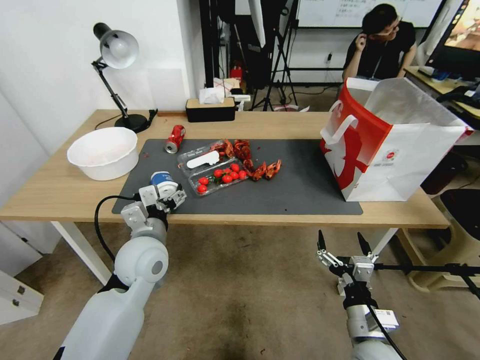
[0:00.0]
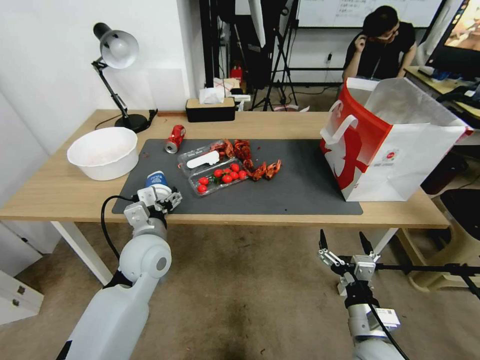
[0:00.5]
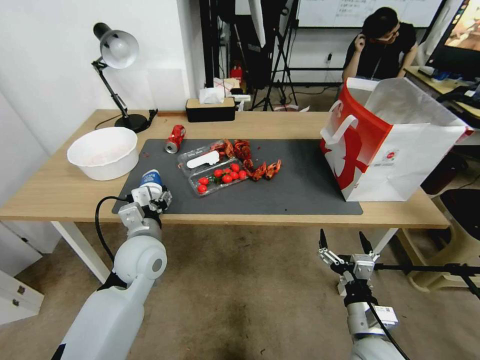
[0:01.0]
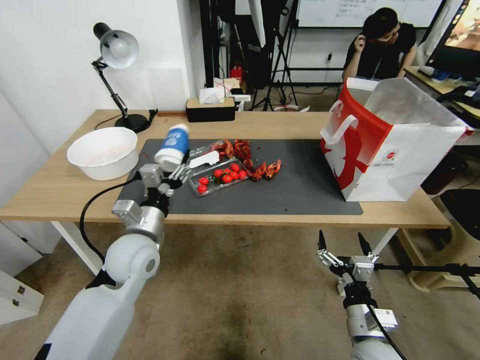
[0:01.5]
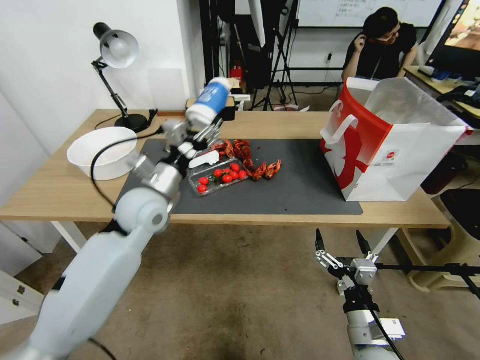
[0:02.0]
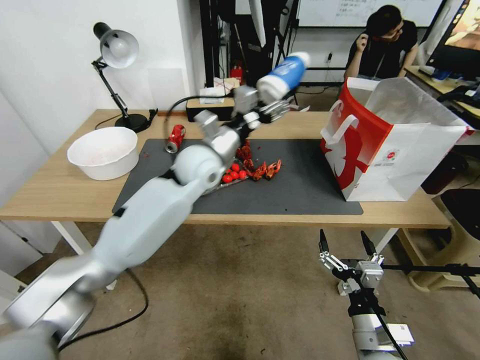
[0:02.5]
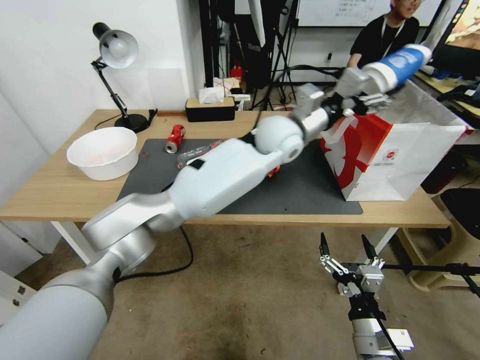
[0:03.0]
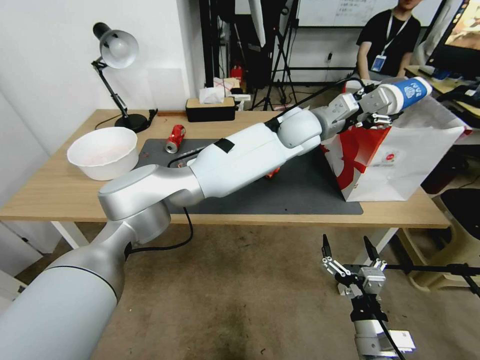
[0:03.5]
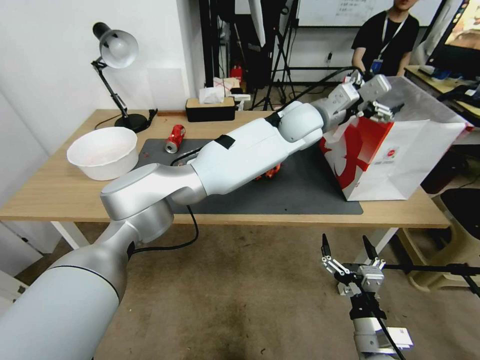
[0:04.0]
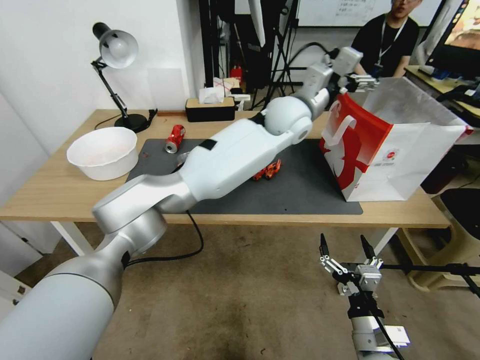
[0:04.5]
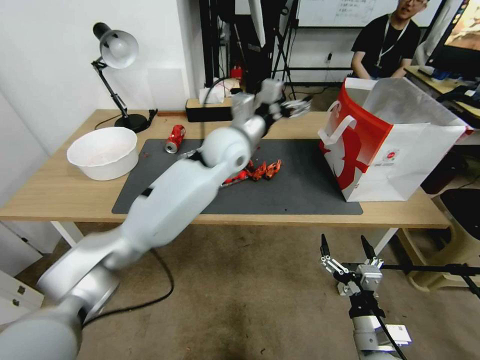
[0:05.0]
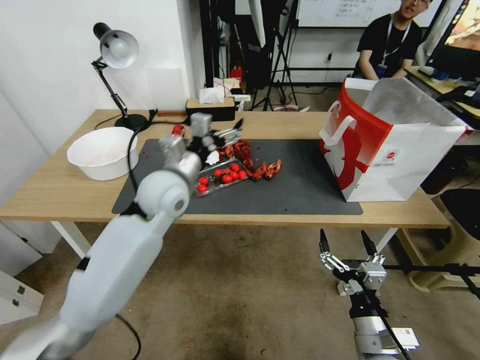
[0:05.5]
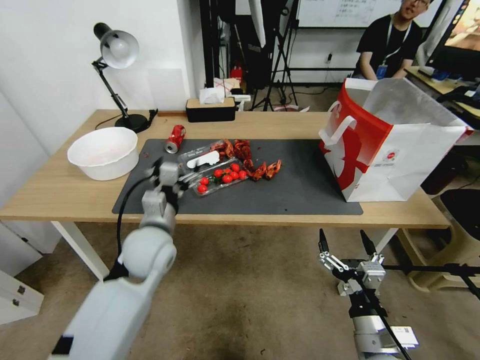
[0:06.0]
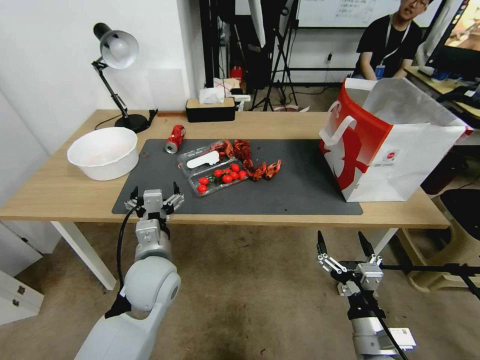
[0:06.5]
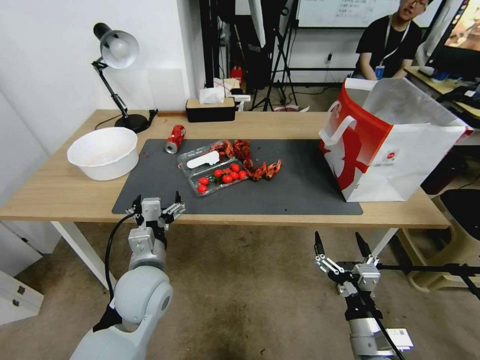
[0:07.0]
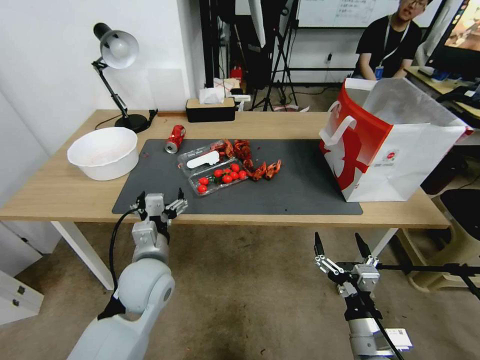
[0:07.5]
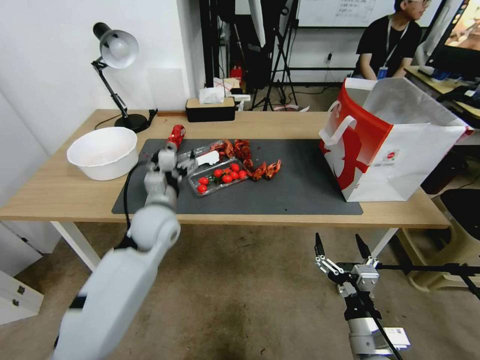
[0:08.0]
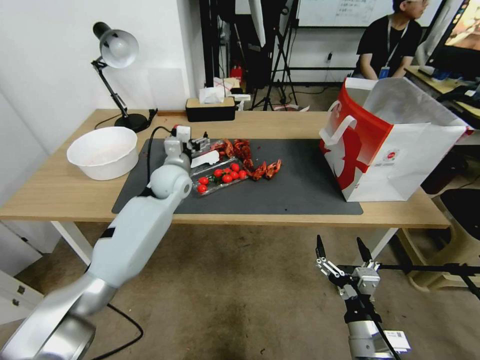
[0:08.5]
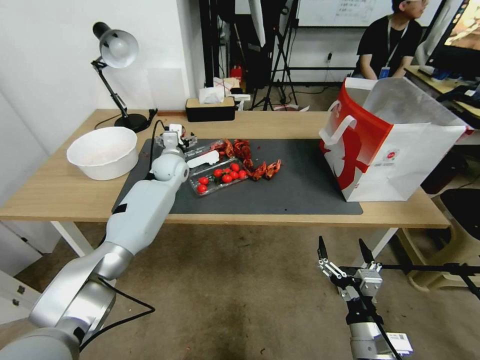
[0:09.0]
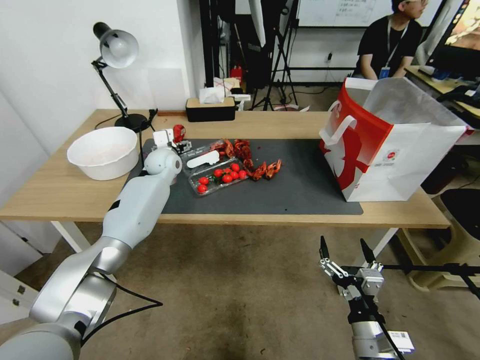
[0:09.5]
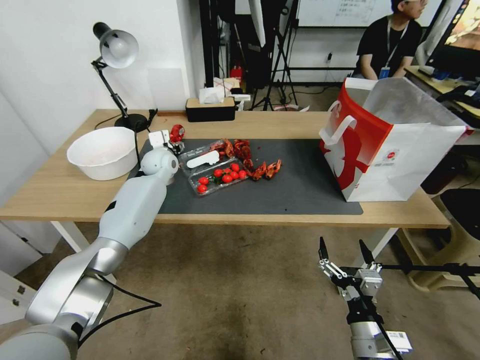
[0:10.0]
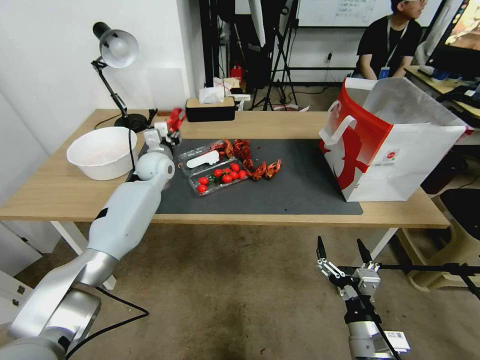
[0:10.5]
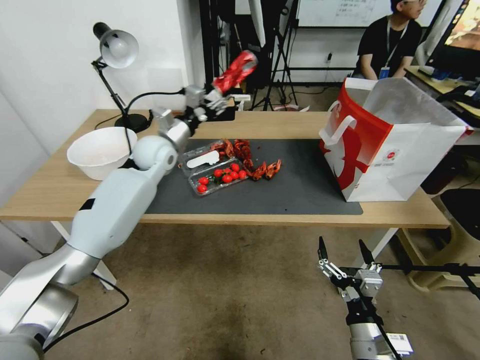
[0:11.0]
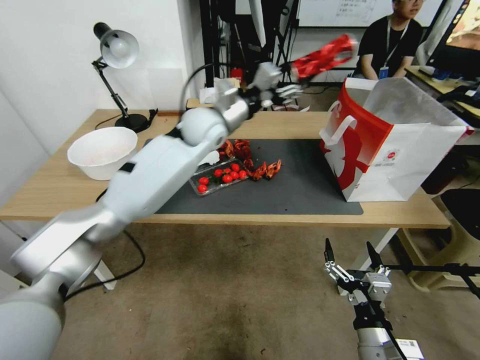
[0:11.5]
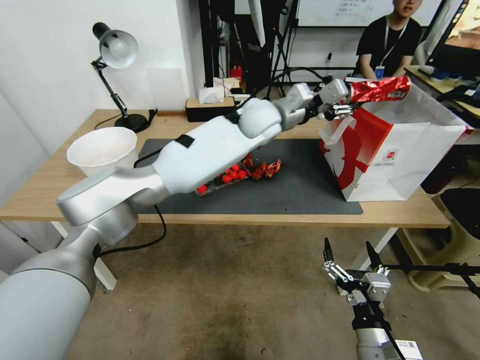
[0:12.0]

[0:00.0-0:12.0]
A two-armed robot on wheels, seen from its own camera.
0:00.0 to 0:02.0: The left gripper heads forward and upward, covering roughly 10 cm, and closes up.
0:02.0 to 0:04.0: The left gripper heads to the right and forward, covering roughly 35 cm, and opens.
0:04.0 to 0:06.0: The left gripper is displaced to the left, backward and downward by roughly 40 cm.
0:06.0 to 0:08.0: The left gripper goes backward and returns, roughly 10 cm each way.
0:08.0 to 0:10.0: The left gripper heads forward, covering about 25 cm, and closes its fingers.
0:10.0 to 0:12.0: The left gripper moves to the right and upward, about 30 cm, and closes.

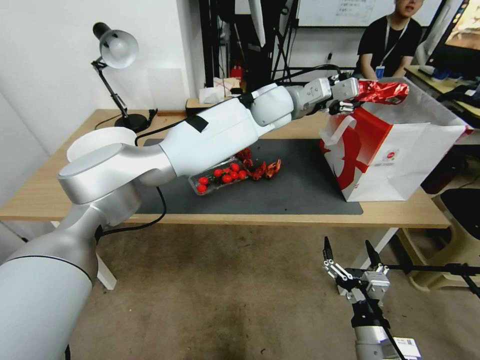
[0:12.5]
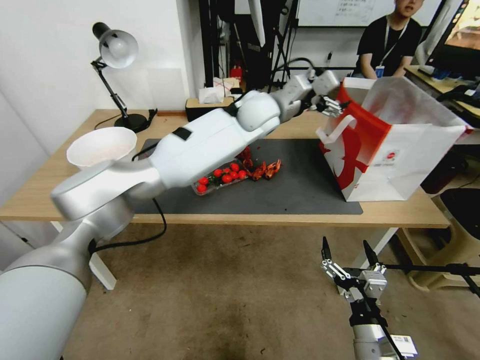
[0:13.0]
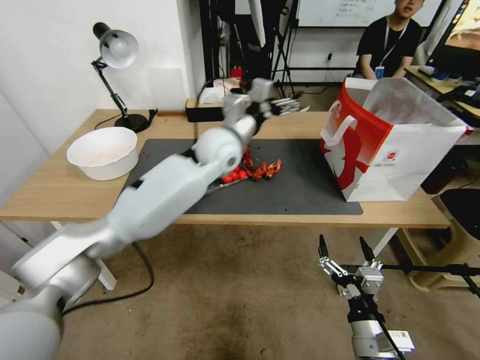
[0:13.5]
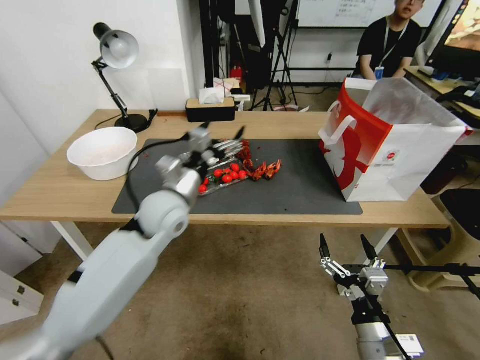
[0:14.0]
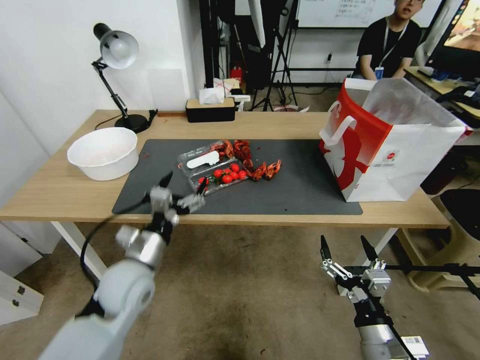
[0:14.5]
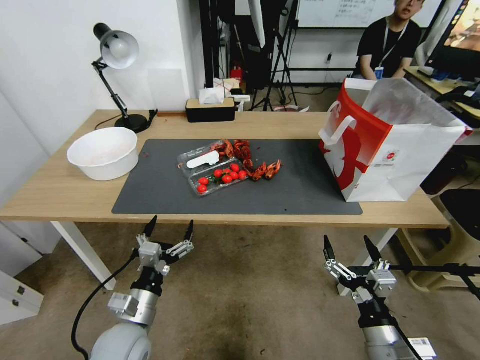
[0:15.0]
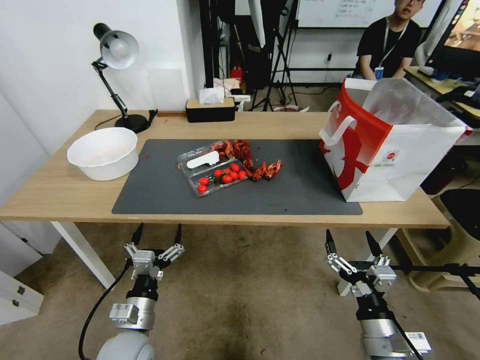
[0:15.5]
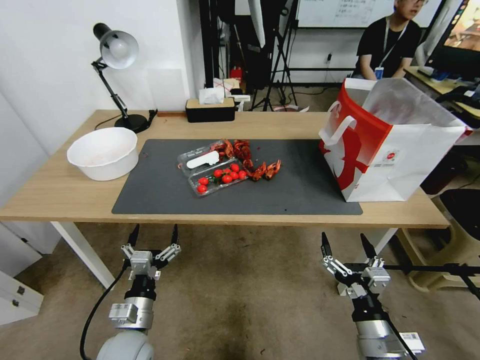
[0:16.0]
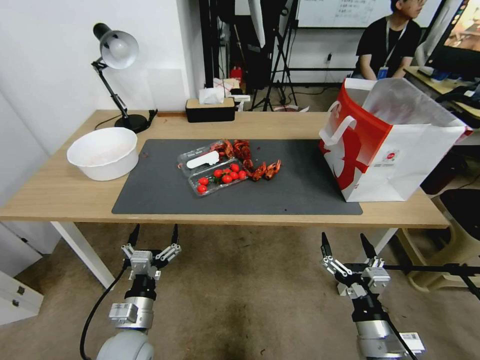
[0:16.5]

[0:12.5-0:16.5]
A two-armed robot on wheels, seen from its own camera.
0:12.5 to 0:14.5: The left gripper travels backward, to the left and downward by approximately 50 cm, and opens.
0:14.5 to 0:16.5: The left gripper is displaced downward and backward by approximately 15 cm.

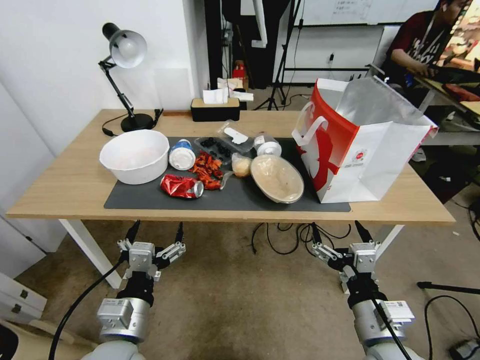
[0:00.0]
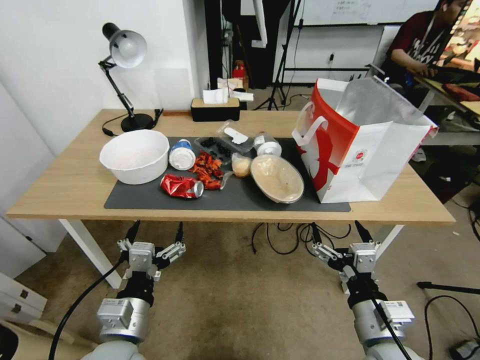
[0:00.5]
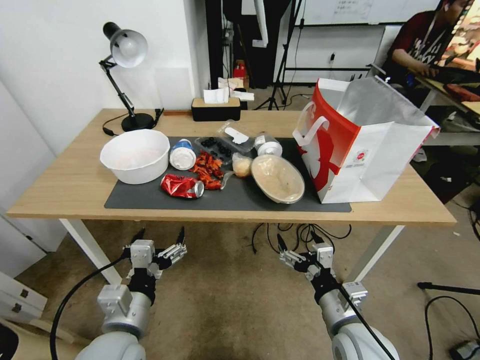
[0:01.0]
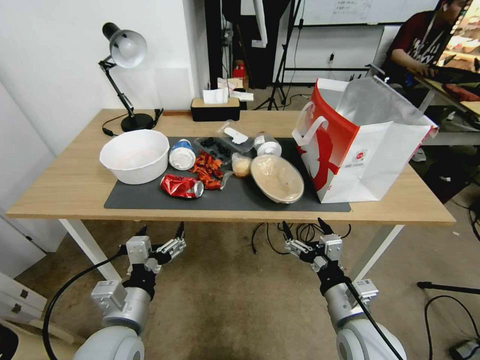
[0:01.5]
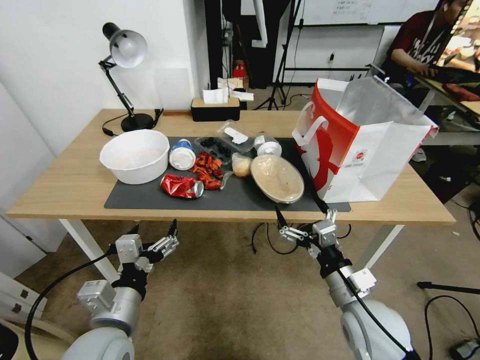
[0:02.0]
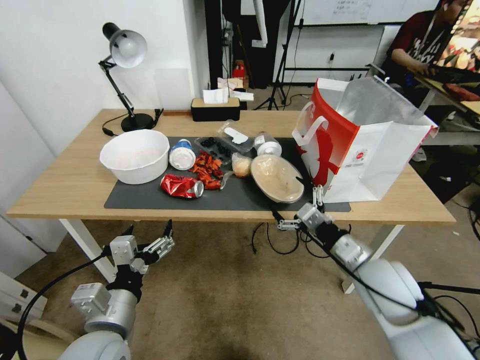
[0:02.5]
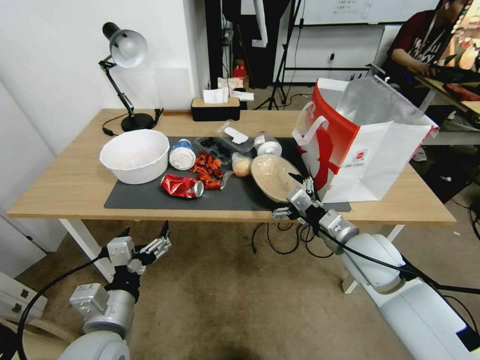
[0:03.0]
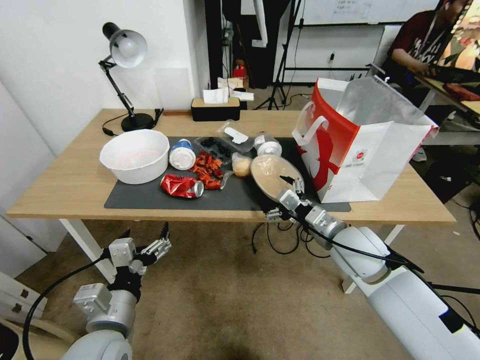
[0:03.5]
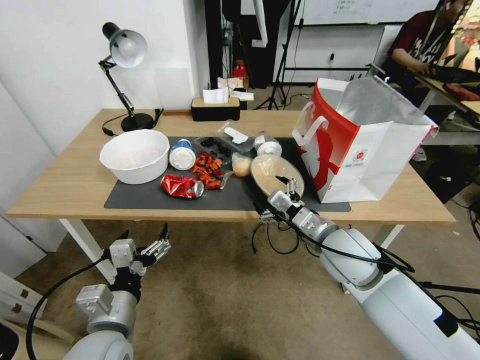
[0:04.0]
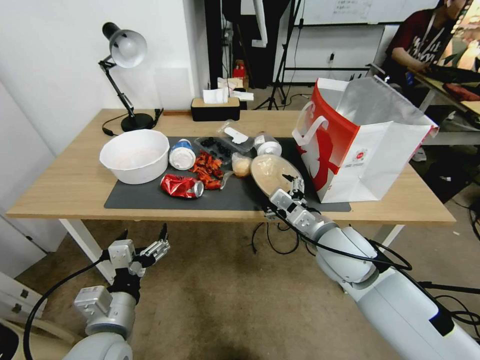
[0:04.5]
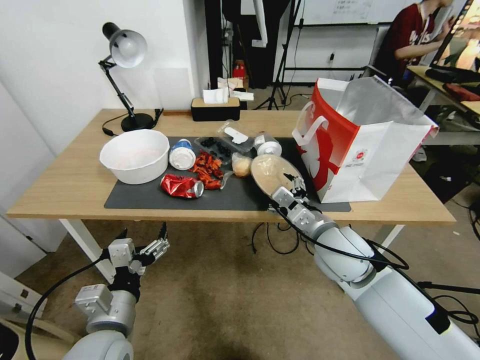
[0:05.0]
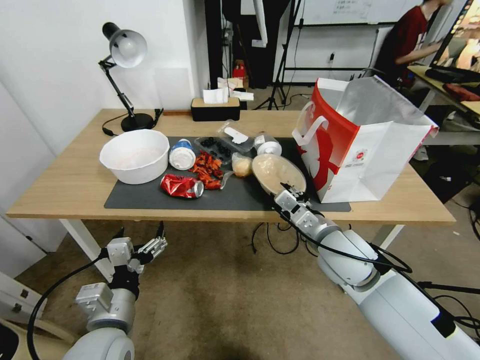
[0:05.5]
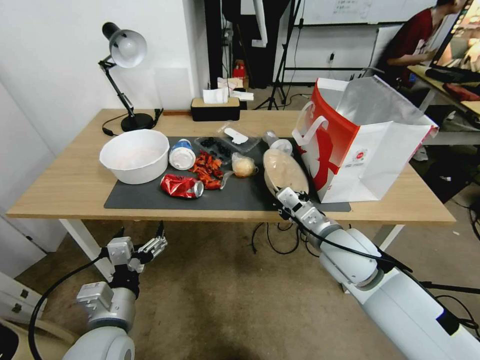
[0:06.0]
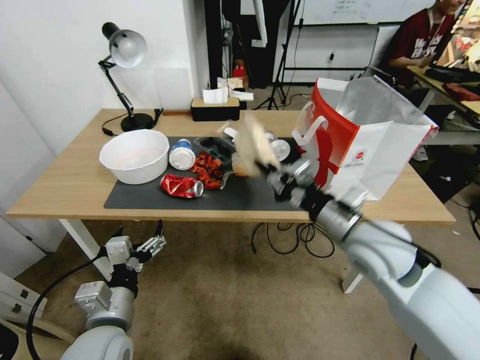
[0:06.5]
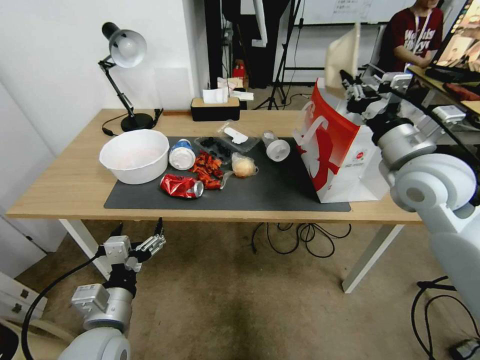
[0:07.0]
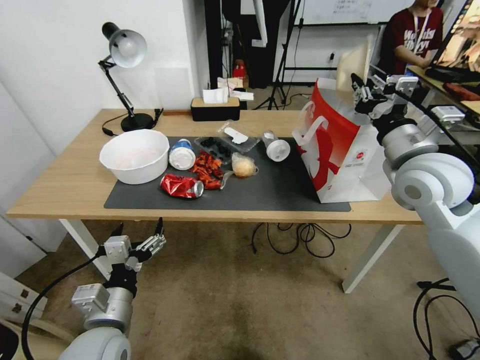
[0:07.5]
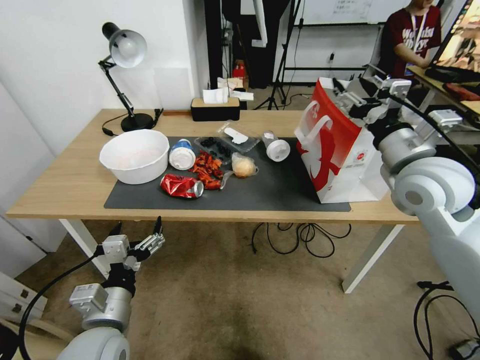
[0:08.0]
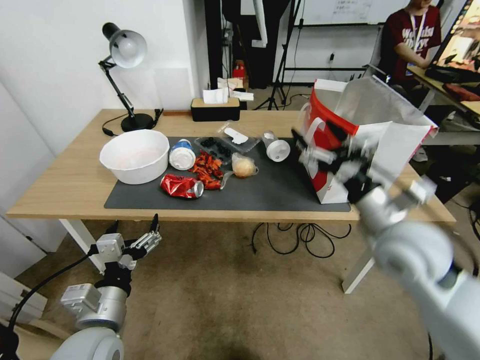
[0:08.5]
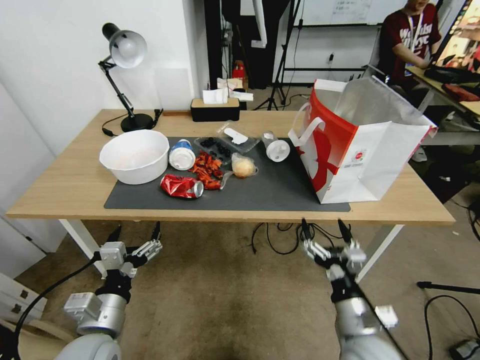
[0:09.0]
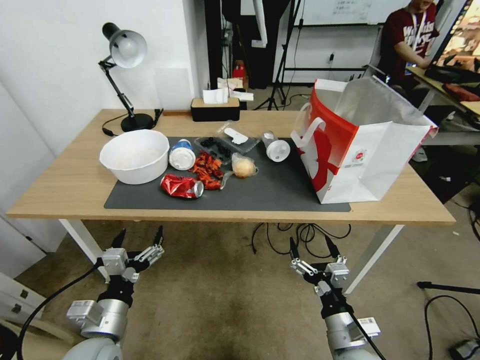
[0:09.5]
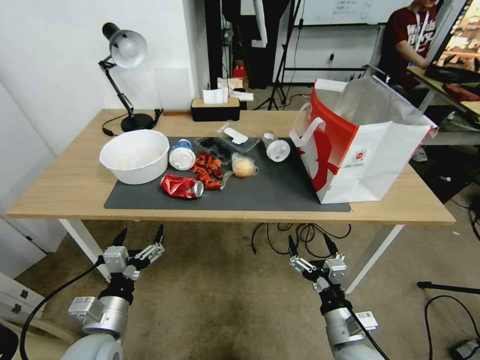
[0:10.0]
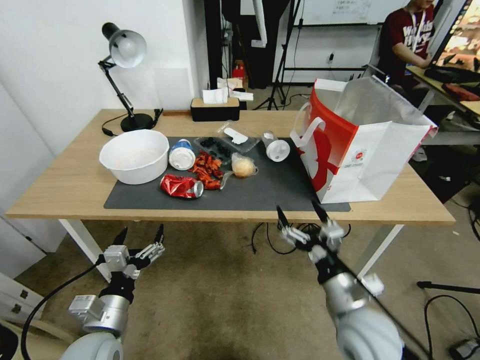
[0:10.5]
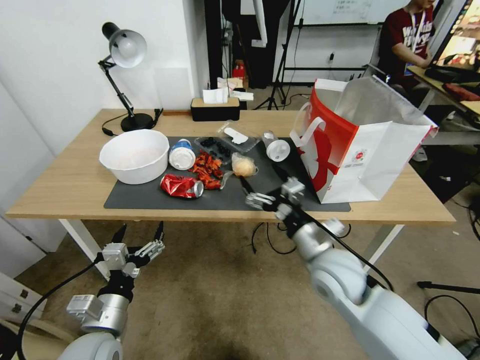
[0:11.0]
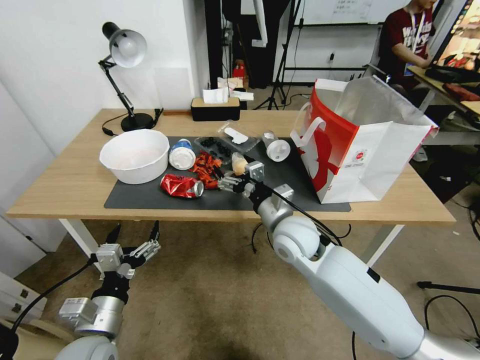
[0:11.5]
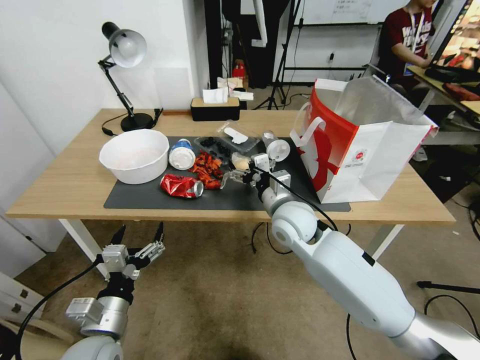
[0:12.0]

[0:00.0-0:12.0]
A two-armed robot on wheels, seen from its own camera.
0:02.0 to 0:04.0: The right gripper goes approximately 15 cm forward and upward.
0:04.0 to 0:06.0: The right gripper closes its fingers.
0:06.0 to 0:08.0: The right gripper shifts some 15 cm upward and to the right, and opens its fingers.
0:08.0 to 0:10.0: The left gripper moves downward, approximately 5 cm, while the right gripper moves downward and backward, some 35 cm.
0:10.0 to 0:12.0: The right gripper goes roughly 30 cm forward, upward and to the left.
